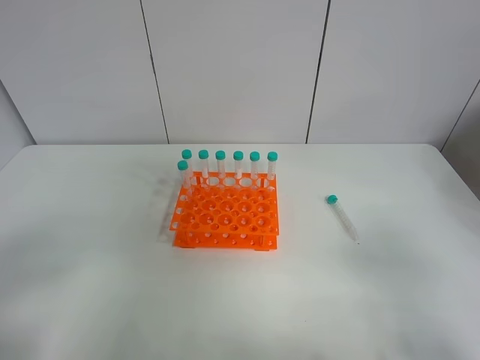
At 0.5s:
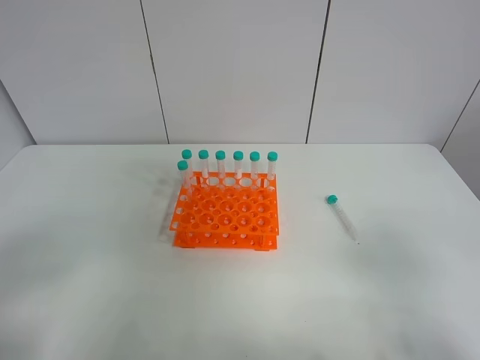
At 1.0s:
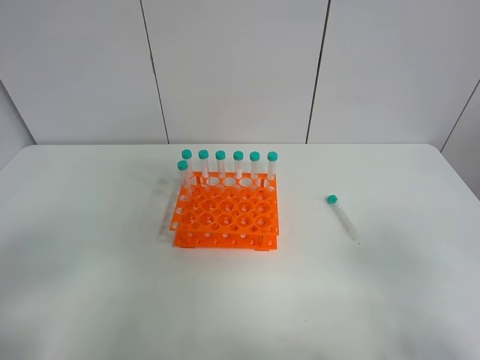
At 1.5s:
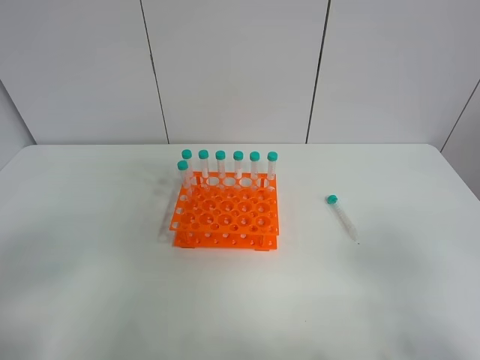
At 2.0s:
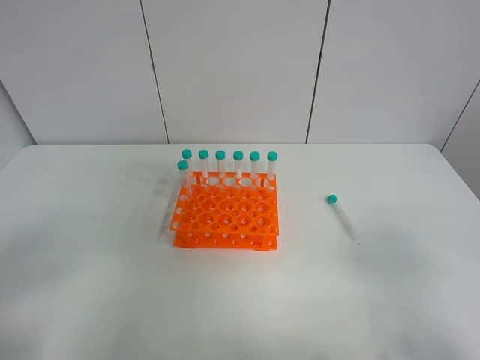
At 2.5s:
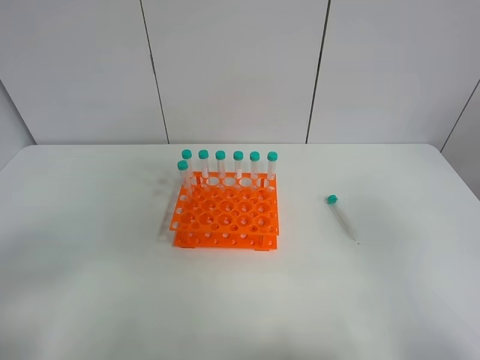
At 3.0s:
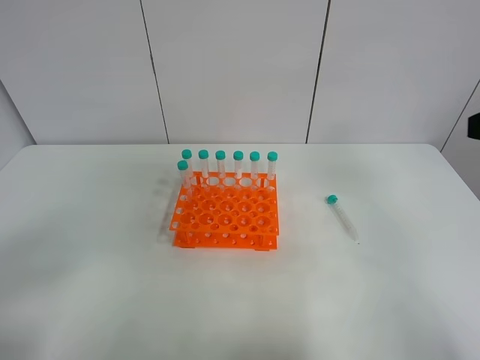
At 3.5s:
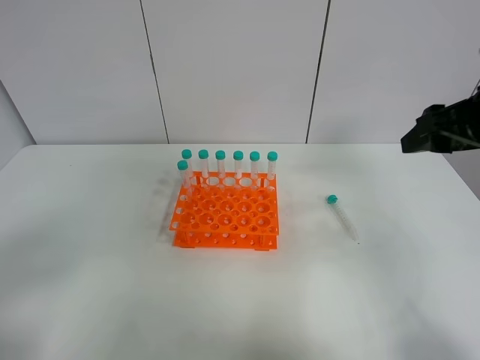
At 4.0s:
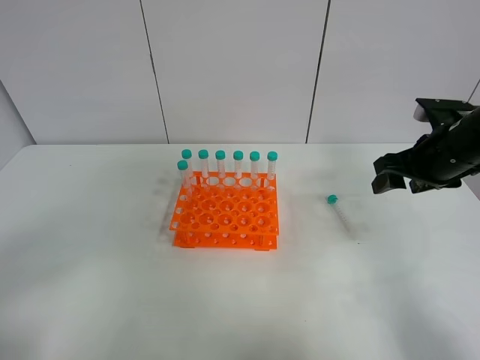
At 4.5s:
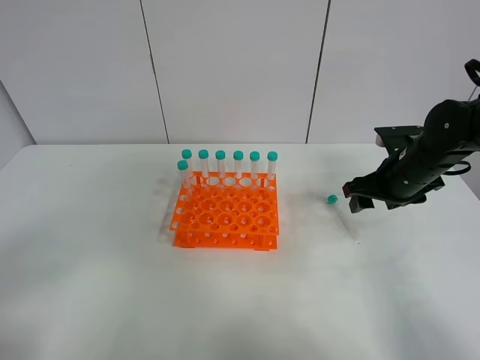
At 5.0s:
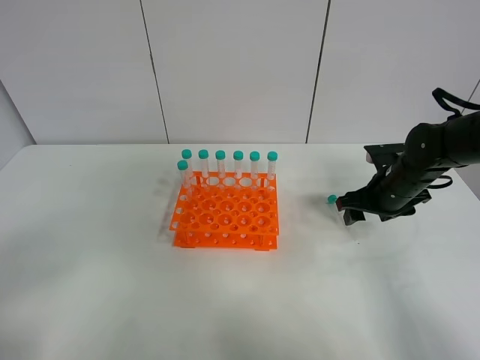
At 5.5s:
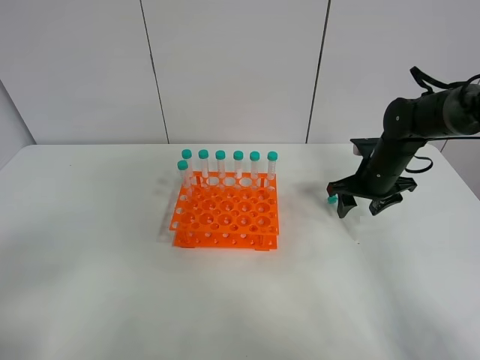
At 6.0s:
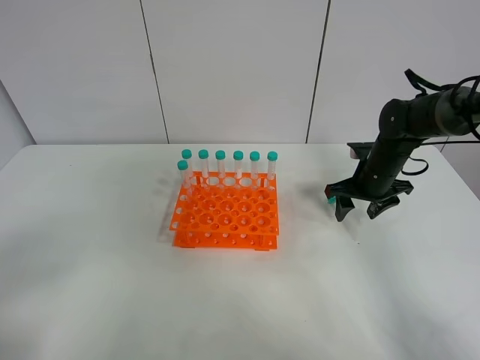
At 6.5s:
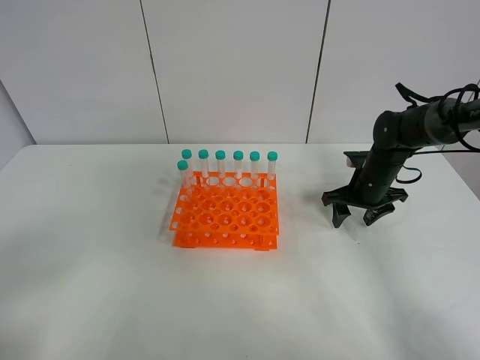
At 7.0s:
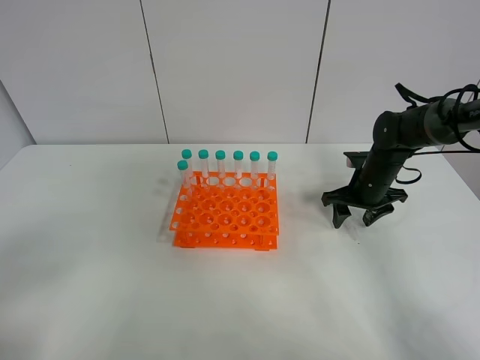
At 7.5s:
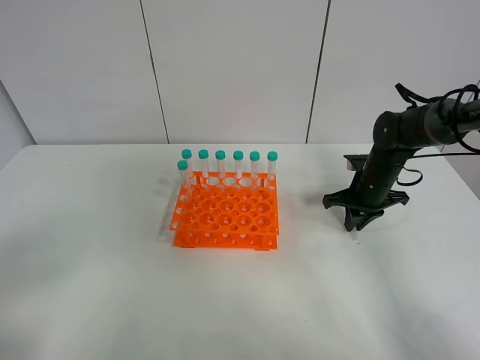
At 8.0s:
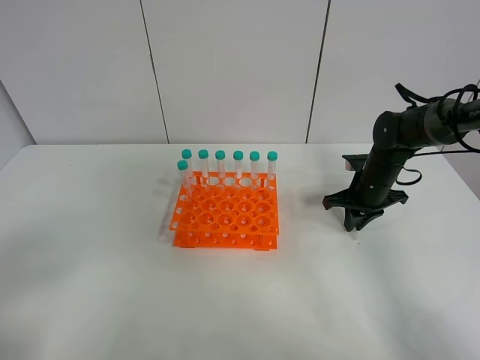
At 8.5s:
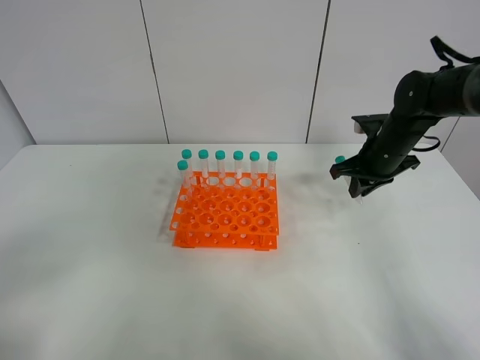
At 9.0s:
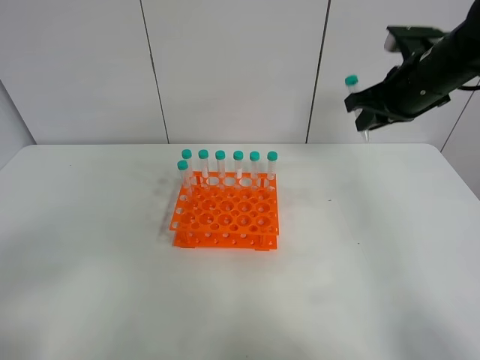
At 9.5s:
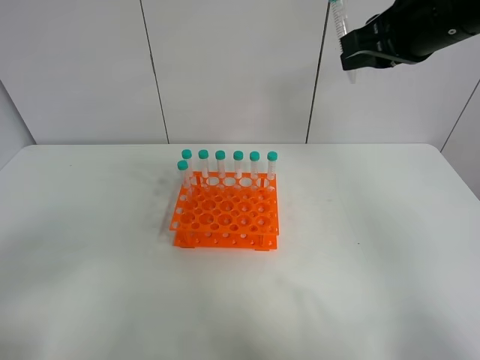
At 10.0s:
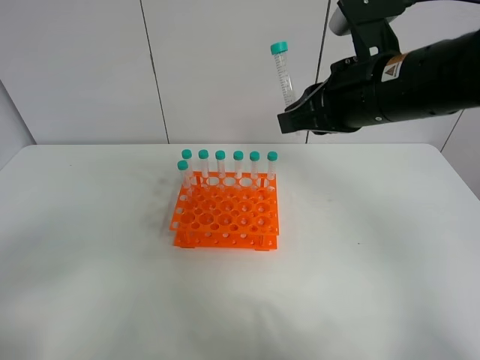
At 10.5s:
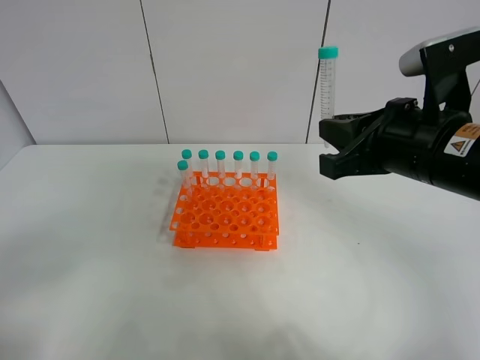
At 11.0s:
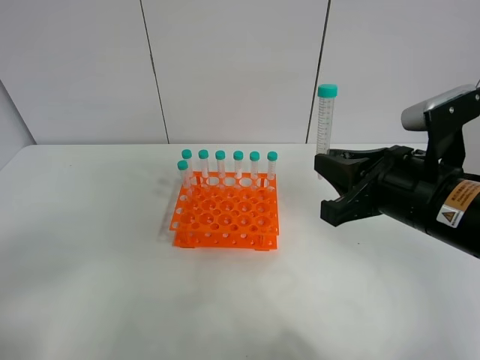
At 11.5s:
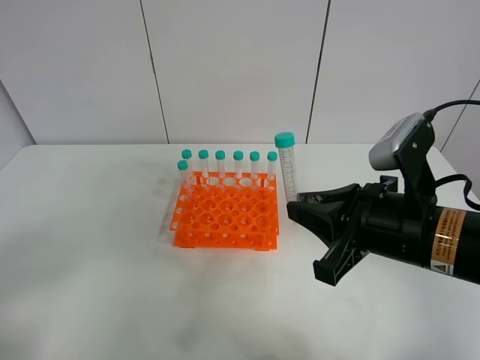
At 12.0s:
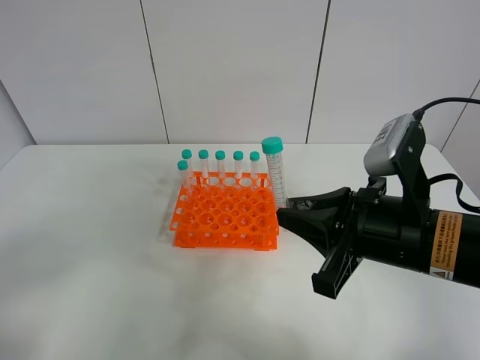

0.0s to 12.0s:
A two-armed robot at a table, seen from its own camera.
Task of the whole recording: Put the test tube on the table back onto the test tube rack.
Step, 0.0s to 8.5s: Pick up the test tube with the right gripper.
0.0s to 2.0s: Neither gripper changes place.
2.0s to 4.0s: The right gripper is displaced forward by some 30 cm.
4.0s to 6.0s: The right gripper heads downward and forward, covering roughly 15 cm.
6.0s to 8.0s: The right gripper closes.
8.0s to 10.0s: The right gripper is displaced upward, backward and to the left by some 30 cm.
10.0s to 12.0s: The right gripper is displaced backward and downward by some 15 cm.

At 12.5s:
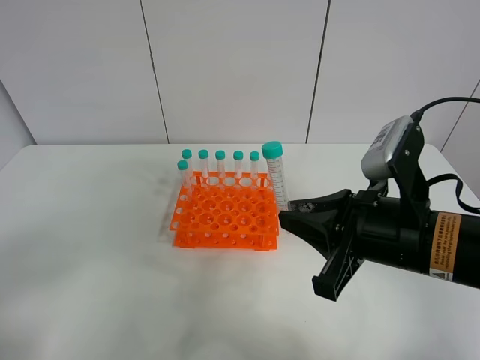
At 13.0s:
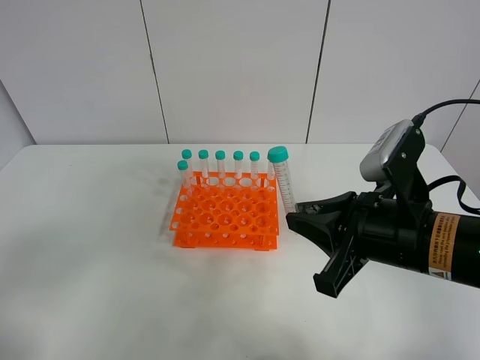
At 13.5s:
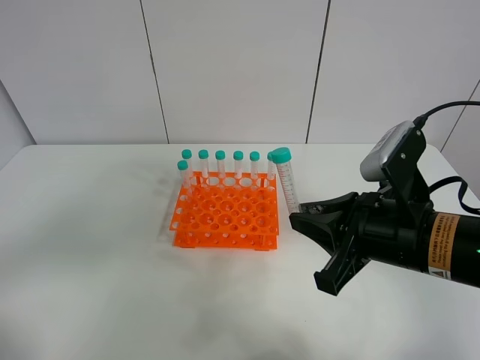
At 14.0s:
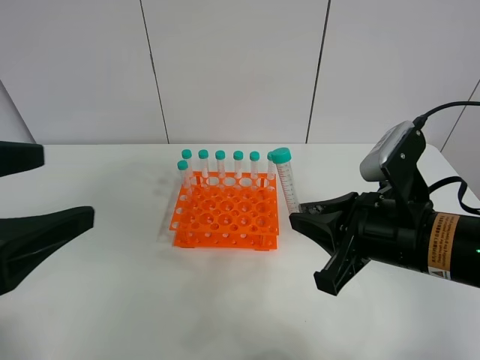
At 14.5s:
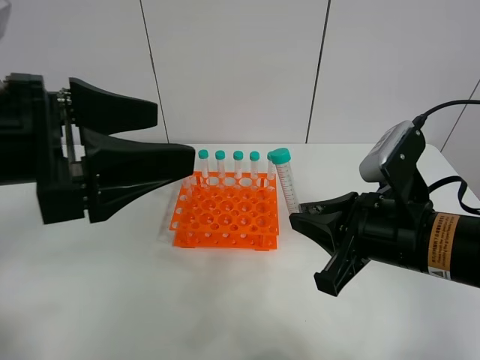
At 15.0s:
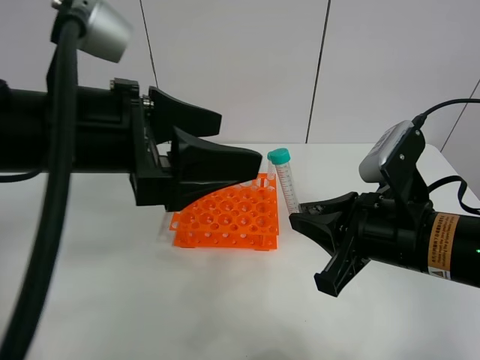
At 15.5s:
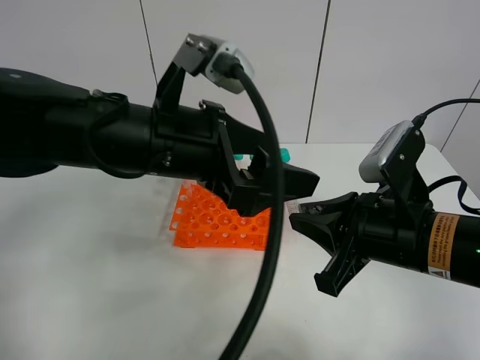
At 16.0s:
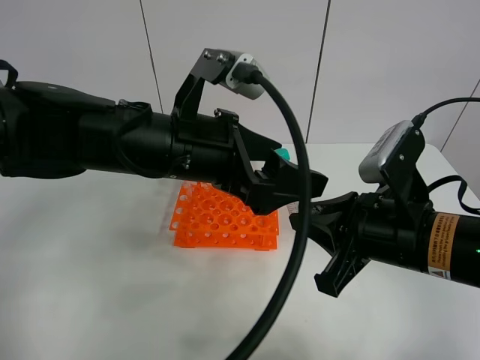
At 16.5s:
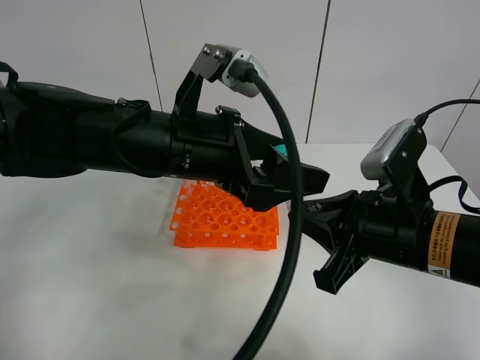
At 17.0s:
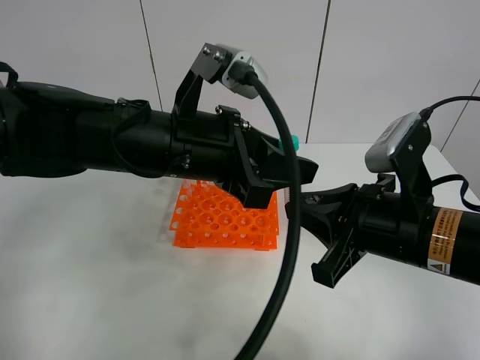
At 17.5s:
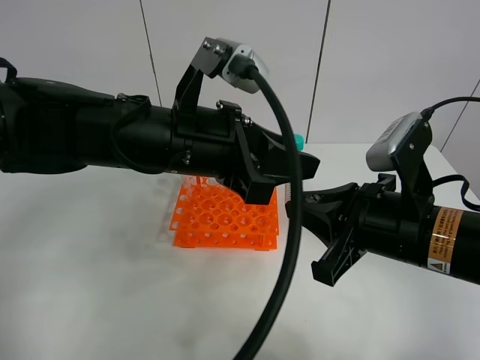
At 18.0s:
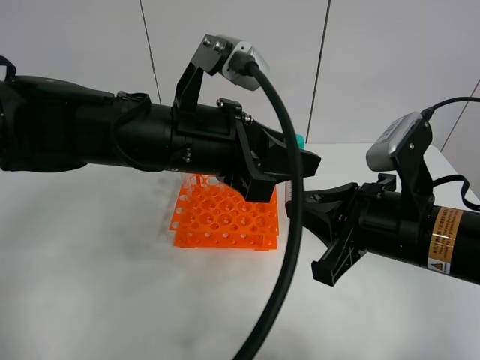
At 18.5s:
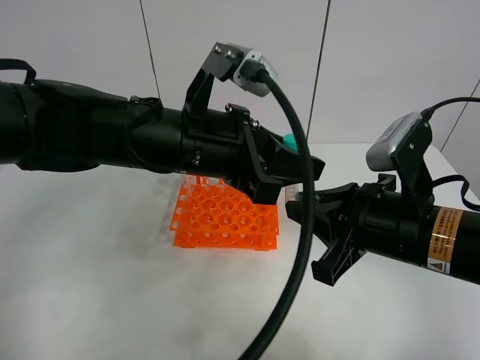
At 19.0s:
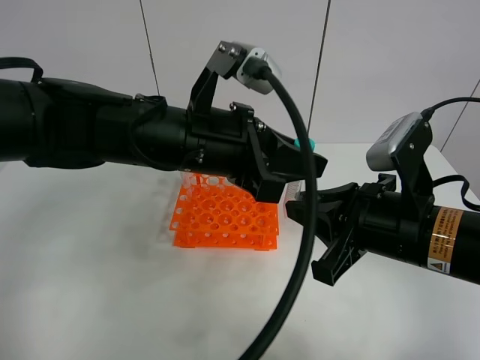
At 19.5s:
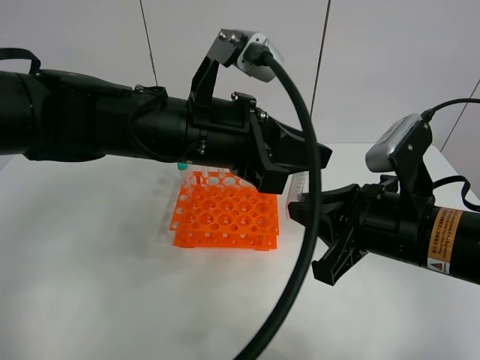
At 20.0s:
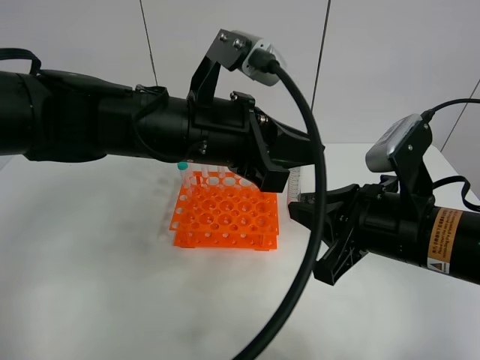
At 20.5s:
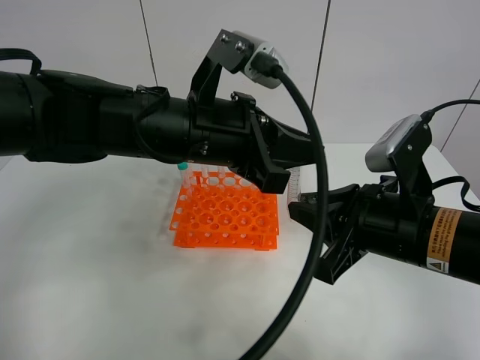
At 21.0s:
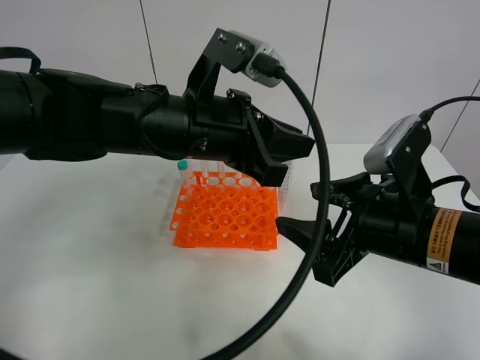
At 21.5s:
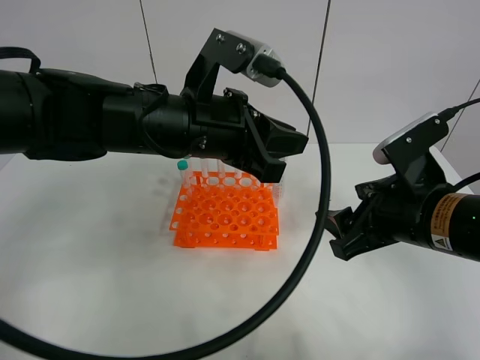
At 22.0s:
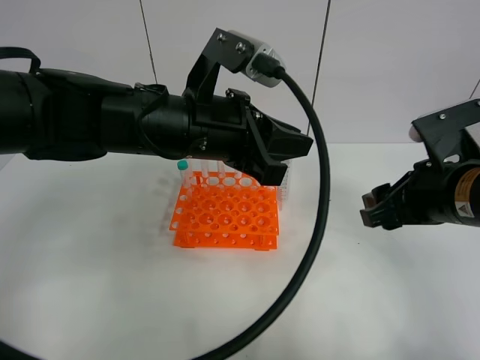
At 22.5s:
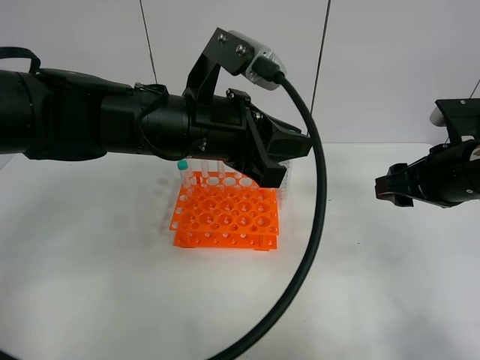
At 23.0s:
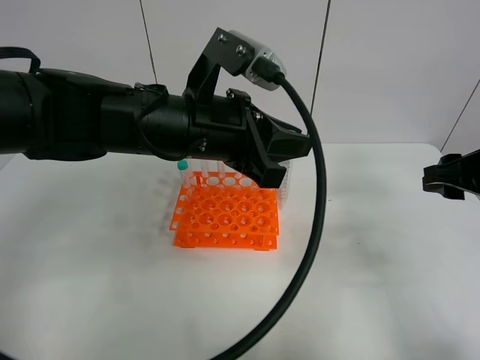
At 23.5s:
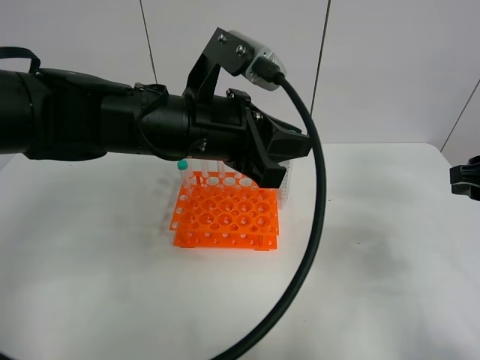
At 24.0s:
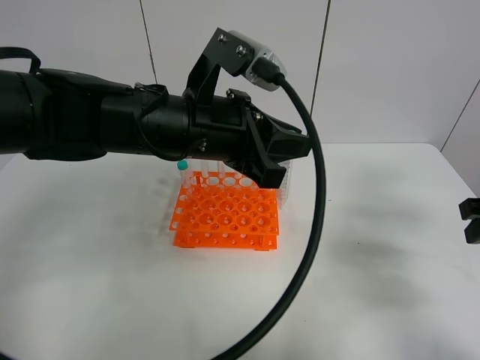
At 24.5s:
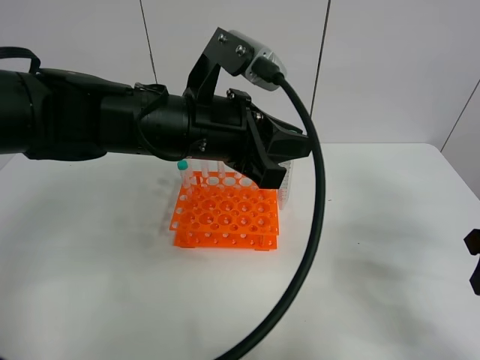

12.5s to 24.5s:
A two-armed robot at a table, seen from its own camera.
Task of the whole recording: Put the test tube on the table back onto the test tube rack.
Step, 12.5s to 21.5s: Move the test tube from the right gripper to the left gripper.
12.5s to 14.5s: The left gripper heads forward and to the right, covering some 20 cm.
14.5s to 16.5s: The left gripper heads to the right, forward and downward, covering approximately 15 cm.
16.5s to 18.5s: The left gripper closes up.
18.5s to 20.5s: There are only small adjustments of the grippers.
20.5s to 22.5s: The right gripper goes roughly 10 cm to the right and forward, and opens its fingers.
22.5s to 24.5s: The right gripper heads backward and to the right, covering about 10 cm.

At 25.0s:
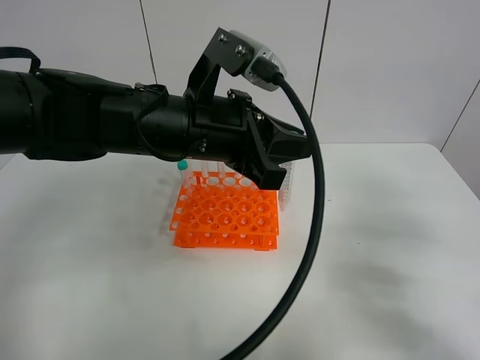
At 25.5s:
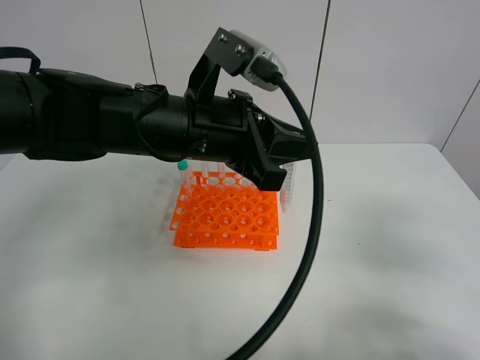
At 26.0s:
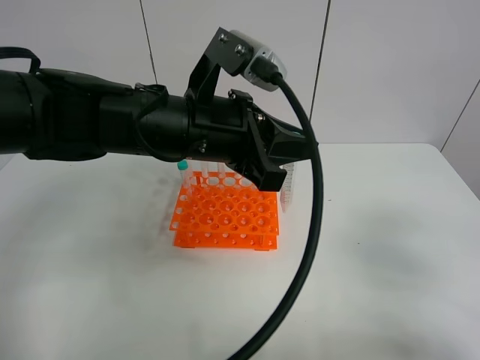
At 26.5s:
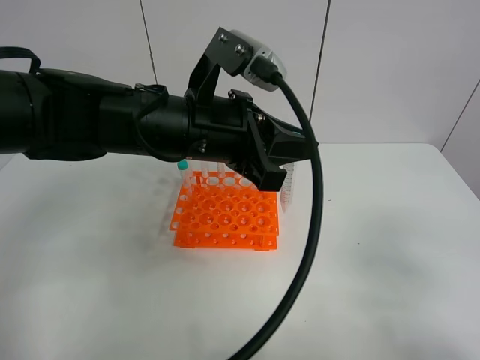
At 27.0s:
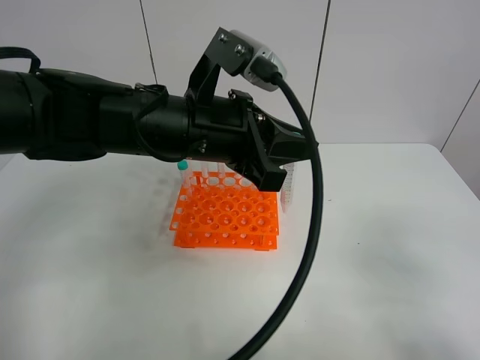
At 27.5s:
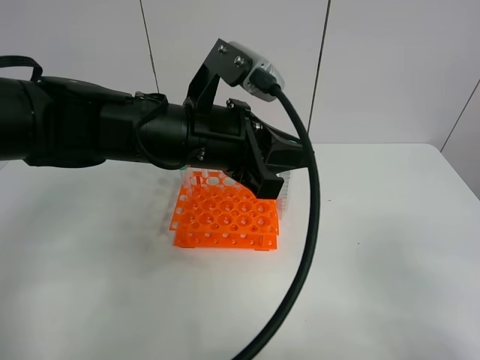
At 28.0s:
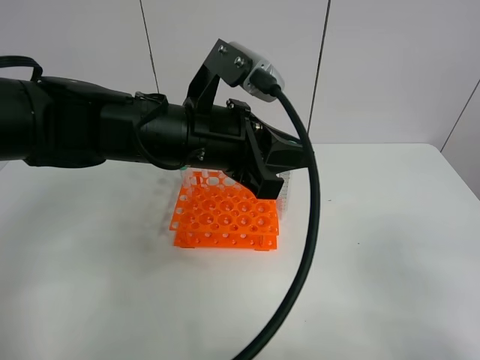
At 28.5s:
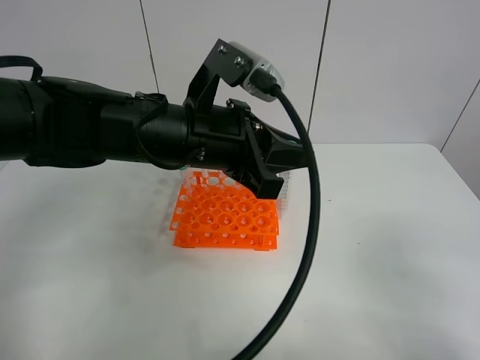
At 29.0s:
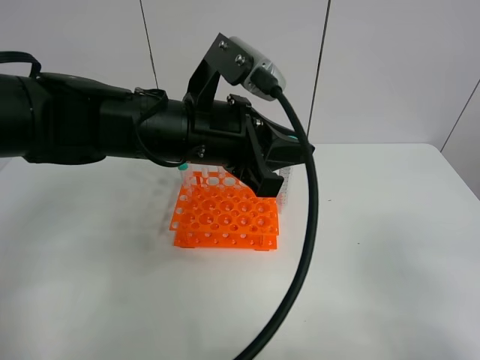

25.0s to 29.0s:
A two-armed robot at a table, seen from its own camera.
Task of the whole recording: Put the test tube on the table back onto the test tube rack.
25.0s to 27.0s: The right gripper heads backward, covering some 15 cm.
27.0s to 29.0s: The grippers make only small movements.
